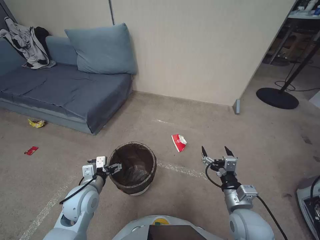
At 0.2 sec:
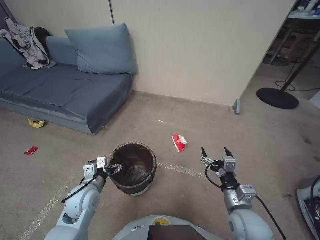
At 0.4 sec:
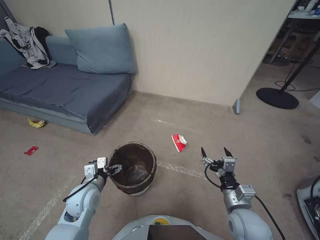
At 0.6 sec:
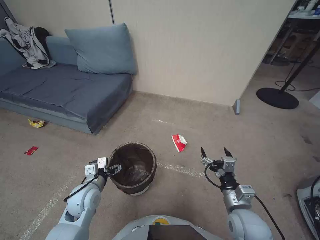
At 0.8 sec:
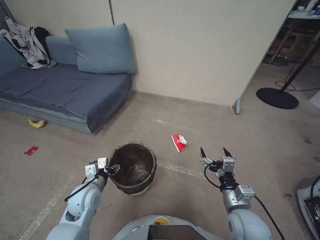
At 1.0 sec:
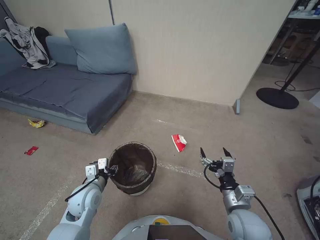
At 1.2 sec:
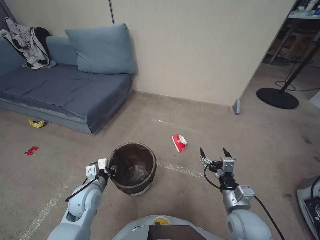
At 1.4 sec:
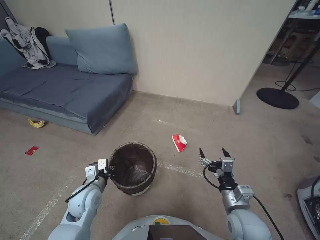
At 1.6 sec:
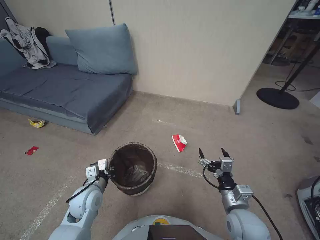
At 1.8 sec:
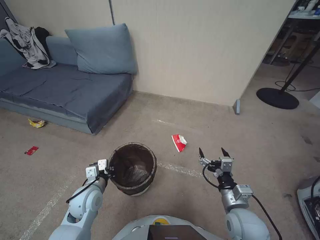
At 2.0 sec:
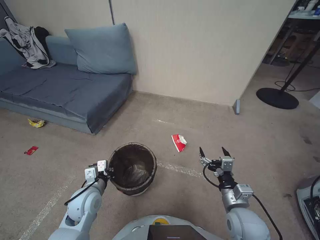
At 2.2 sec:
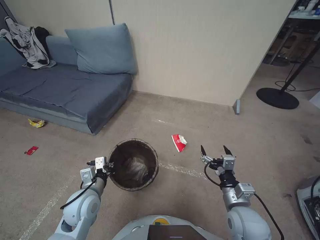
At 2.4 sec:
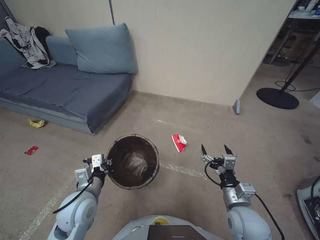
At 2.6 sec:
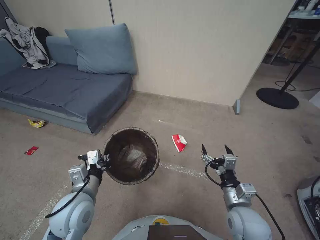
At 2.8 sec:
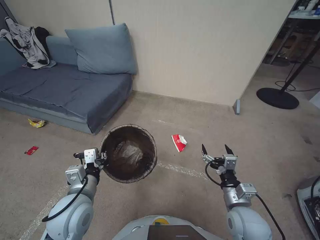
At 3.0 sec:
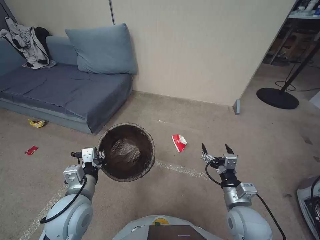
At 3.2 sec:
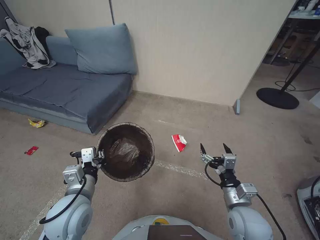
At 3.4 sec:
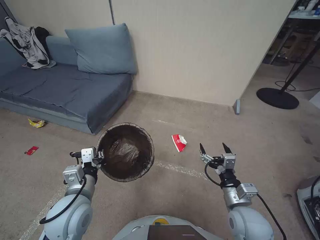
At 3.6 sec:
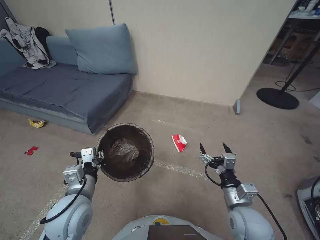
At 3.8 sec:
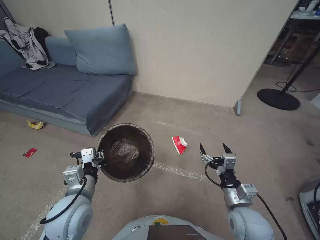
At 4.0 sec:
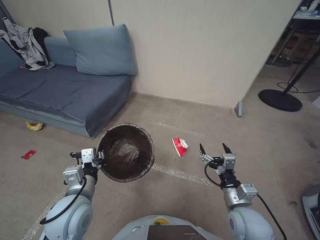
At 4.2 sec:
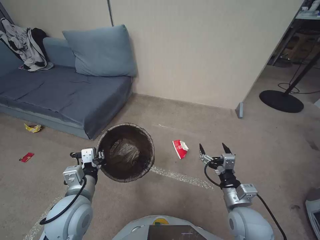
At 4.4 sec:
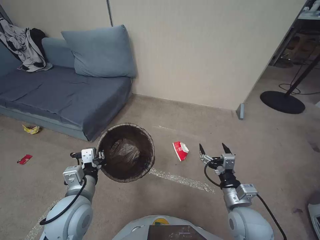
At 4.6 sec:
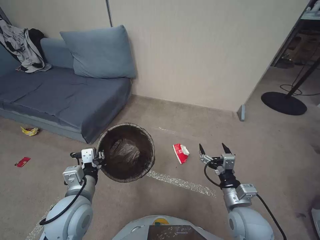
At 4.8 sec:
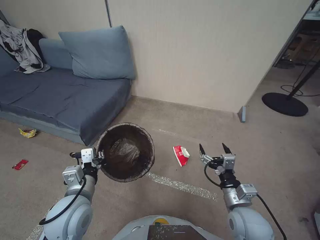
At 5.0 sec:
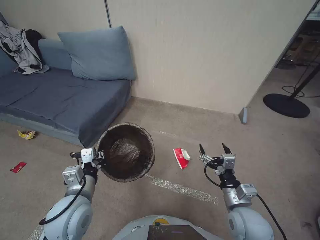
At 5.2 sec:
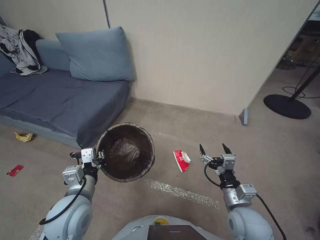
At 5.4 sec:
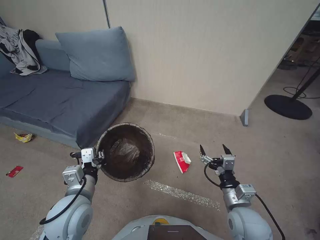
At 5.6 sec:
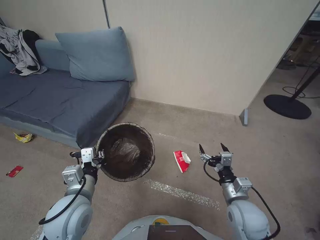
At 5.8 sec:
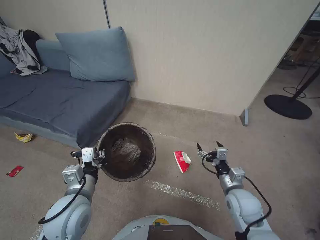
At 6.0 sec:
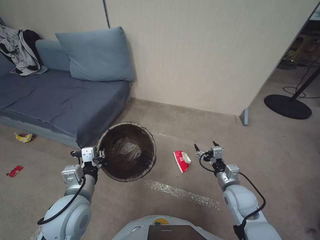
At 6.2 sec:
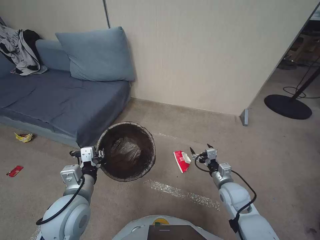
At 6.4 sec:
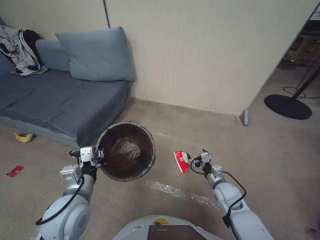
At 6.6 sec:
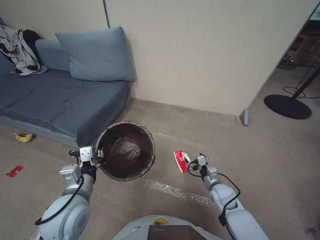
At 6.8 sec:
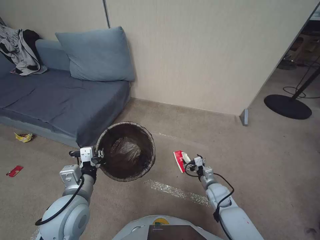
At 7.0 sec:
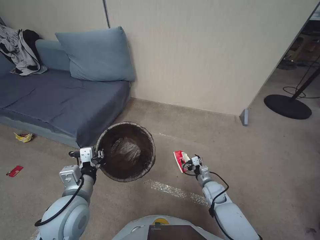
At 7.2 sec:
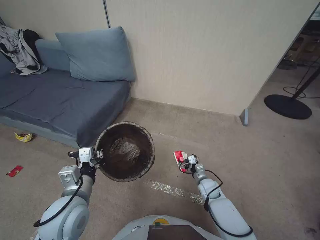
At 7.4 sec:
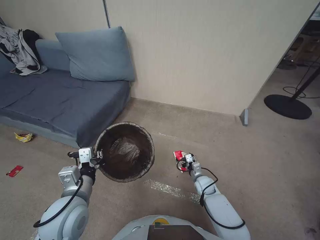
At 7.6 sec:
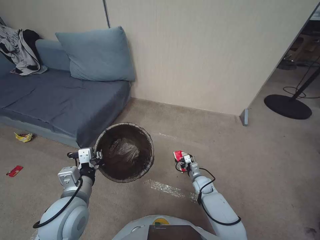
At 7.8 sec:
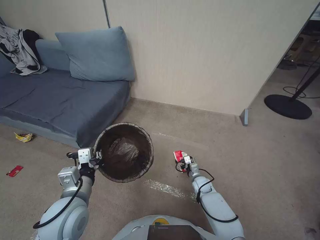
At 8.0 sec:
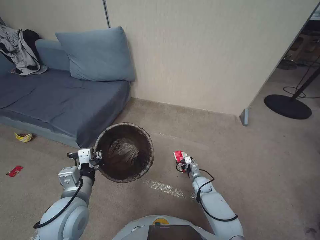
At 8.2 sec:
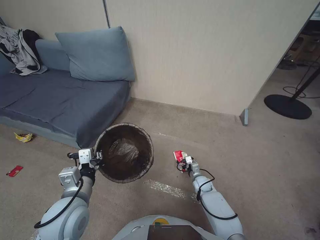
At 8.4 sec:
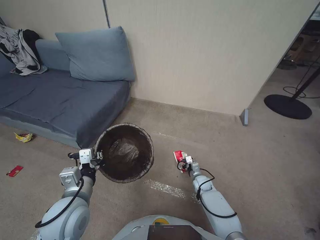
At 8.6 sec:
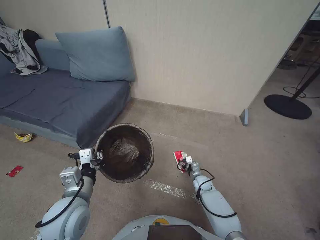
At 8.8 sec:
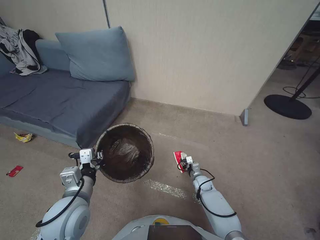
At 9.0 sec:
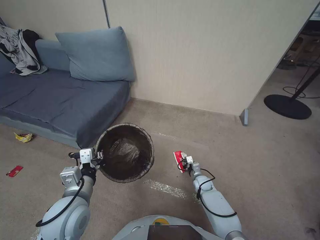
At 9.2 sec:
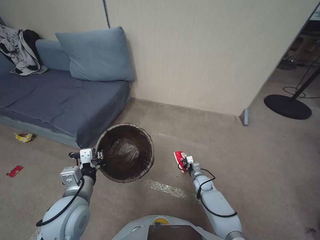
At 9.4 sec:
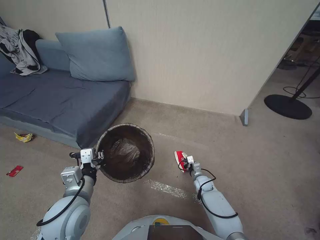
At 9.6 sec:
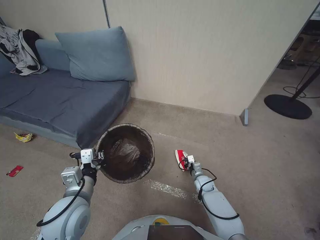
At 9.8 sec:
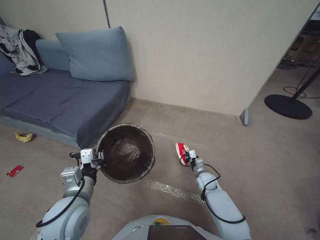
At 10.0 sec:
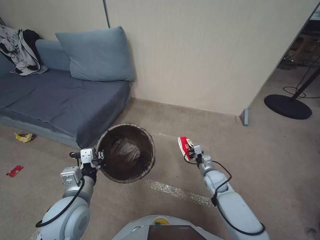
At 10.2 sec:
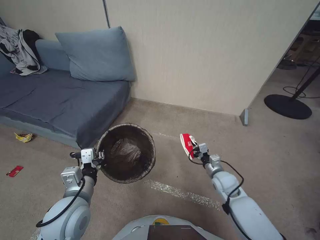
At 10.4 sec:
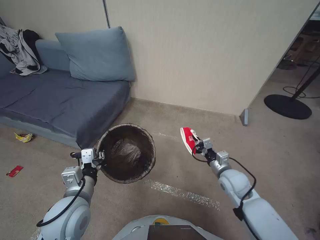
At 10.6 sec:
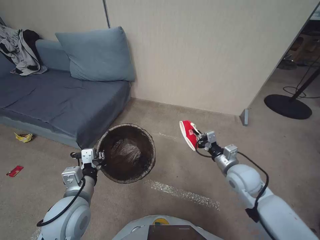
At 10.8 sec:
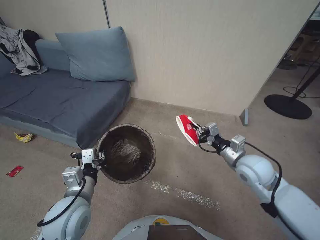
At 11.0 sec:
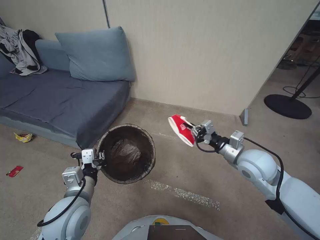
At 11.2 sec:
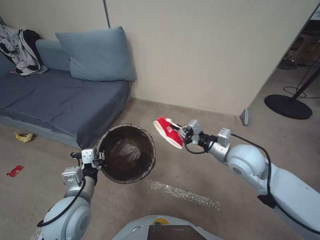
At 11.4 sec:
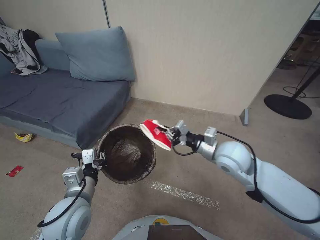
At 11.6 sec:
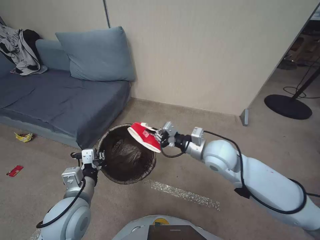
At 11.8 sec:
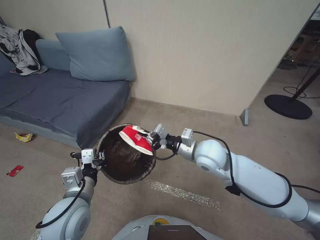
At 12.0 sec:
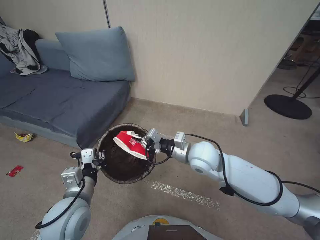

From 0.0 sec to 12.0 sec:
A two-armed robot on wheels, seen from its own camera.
Task of the whole recording: Pick up the trash bin, then pick up the garbage from the floor and place it into the trash bin.
From 0.0 sec to 1.6 sec: The left gripper closes.
From 1.6 sec to 3.0 sec: The left gripper shifts some 10 cm upward and backward.
From 3.0 sec to 4.4 sec: Neither gripper changes place.
From 4.4 sec to 6.0 sec: The right gripper shifts roughly 5 cm forward.
From 6.0 sec to 7.6 sec: The right gripper moves downward and forward, roughly 20 cm.
From 7.6 sec to 9.0 sec: The right gripper closes.
From 9.0 sec to 10.4 sec: The right gripper shifts some 20 cm upward.
From 10.4 sec to 12.0 sec: The right gripper heads upward and to the left, covering about 20 cm.

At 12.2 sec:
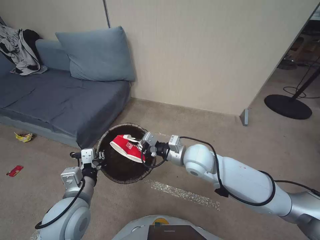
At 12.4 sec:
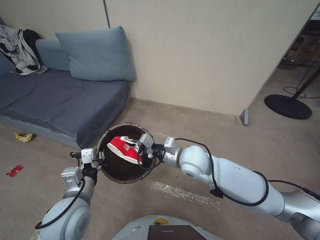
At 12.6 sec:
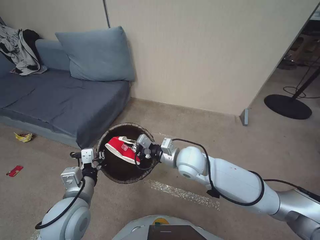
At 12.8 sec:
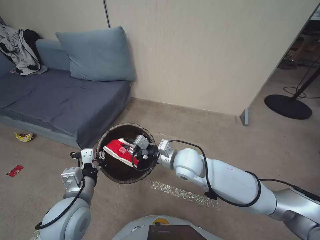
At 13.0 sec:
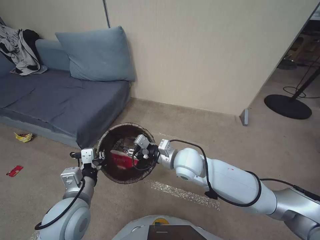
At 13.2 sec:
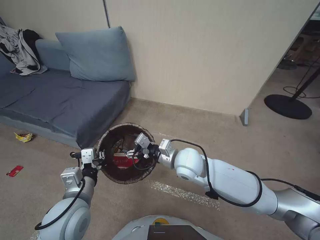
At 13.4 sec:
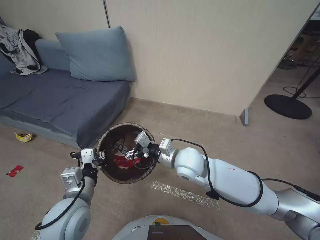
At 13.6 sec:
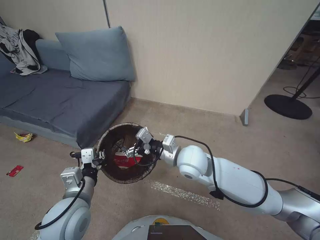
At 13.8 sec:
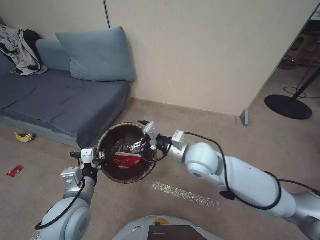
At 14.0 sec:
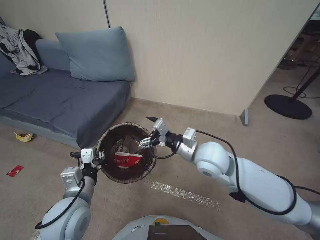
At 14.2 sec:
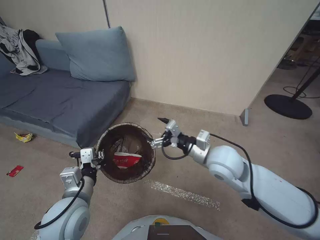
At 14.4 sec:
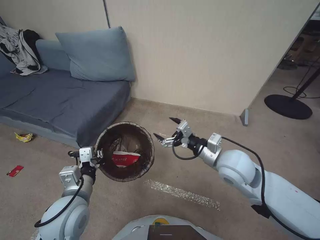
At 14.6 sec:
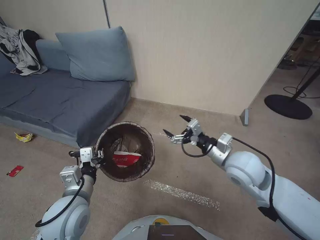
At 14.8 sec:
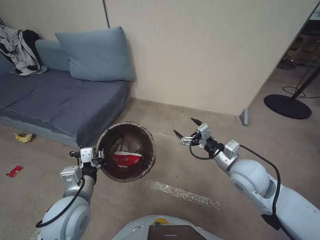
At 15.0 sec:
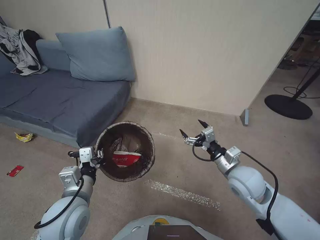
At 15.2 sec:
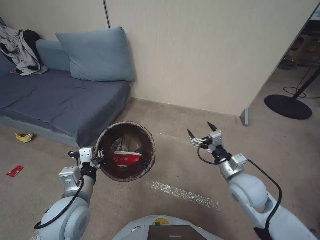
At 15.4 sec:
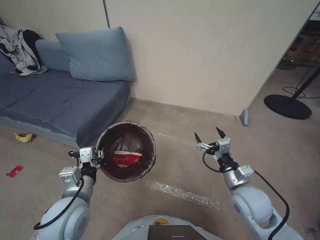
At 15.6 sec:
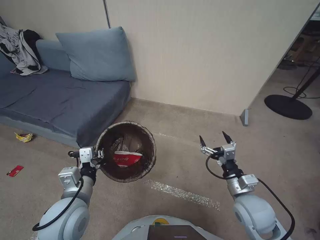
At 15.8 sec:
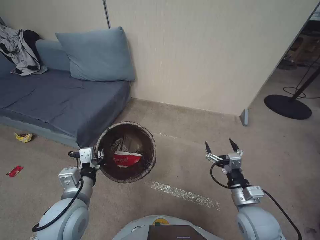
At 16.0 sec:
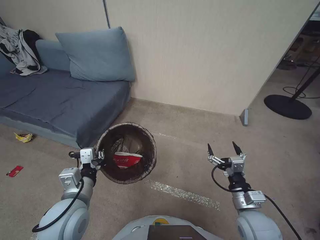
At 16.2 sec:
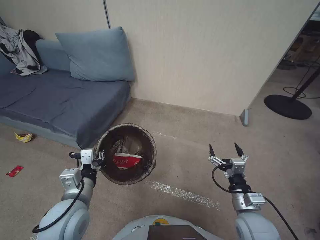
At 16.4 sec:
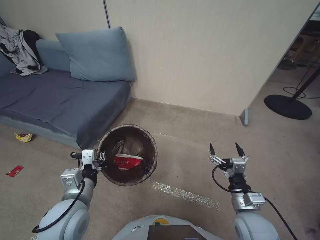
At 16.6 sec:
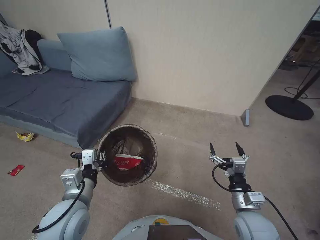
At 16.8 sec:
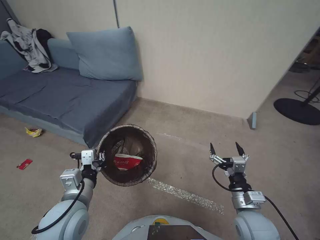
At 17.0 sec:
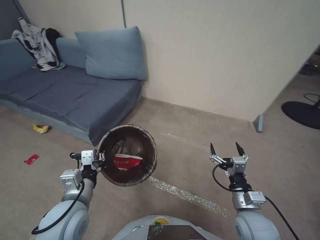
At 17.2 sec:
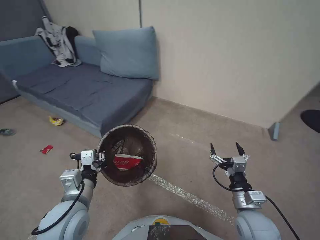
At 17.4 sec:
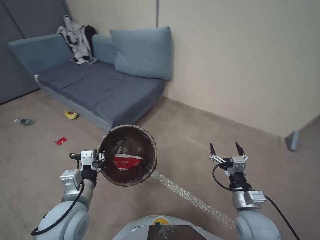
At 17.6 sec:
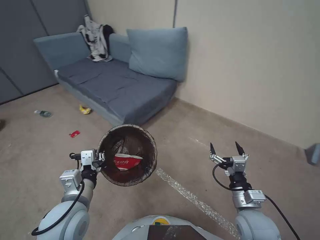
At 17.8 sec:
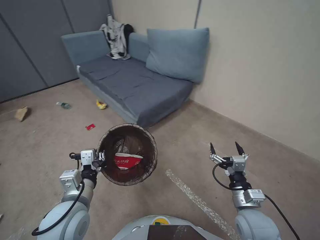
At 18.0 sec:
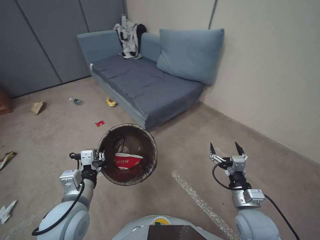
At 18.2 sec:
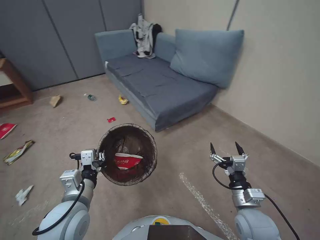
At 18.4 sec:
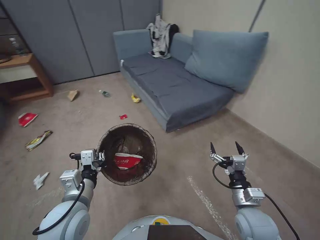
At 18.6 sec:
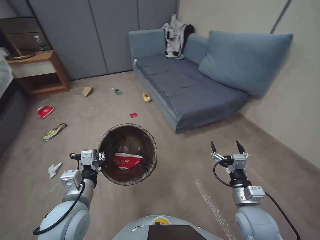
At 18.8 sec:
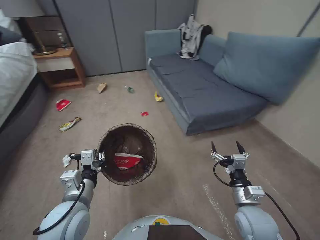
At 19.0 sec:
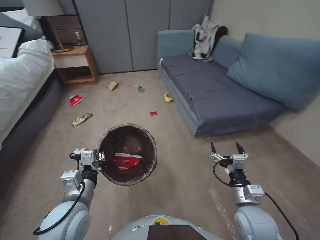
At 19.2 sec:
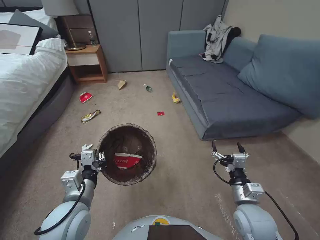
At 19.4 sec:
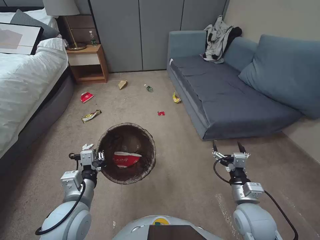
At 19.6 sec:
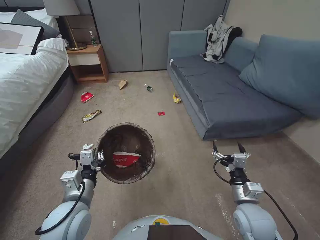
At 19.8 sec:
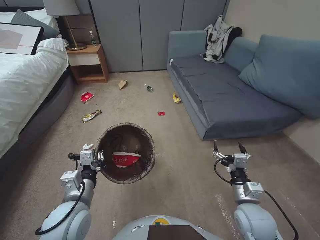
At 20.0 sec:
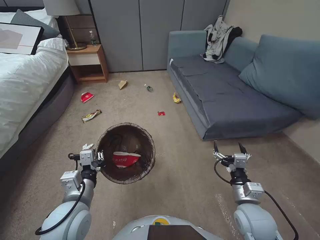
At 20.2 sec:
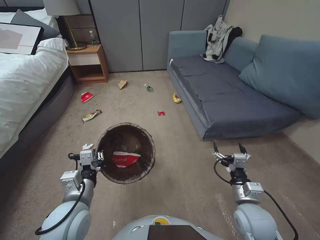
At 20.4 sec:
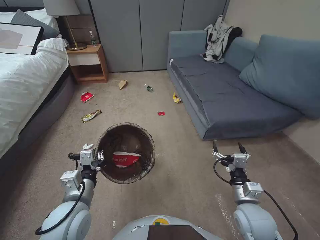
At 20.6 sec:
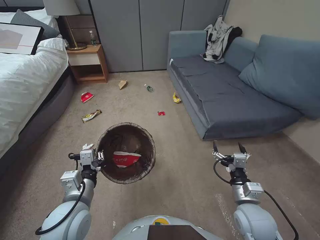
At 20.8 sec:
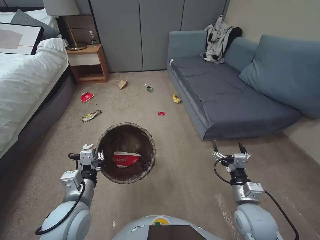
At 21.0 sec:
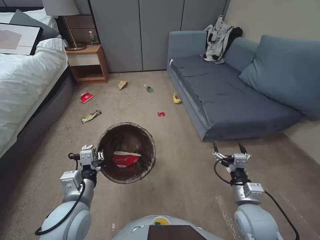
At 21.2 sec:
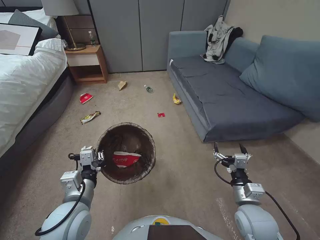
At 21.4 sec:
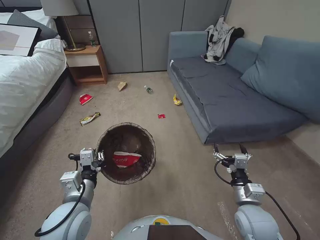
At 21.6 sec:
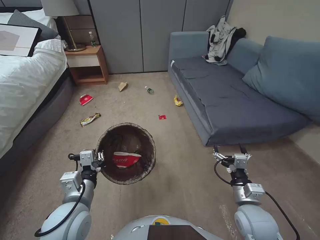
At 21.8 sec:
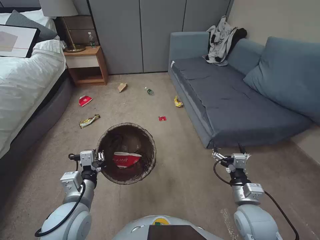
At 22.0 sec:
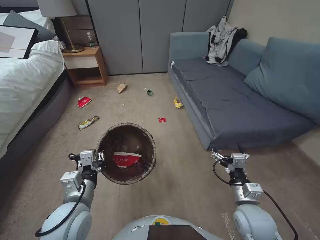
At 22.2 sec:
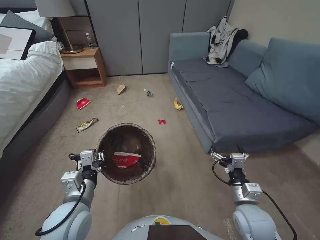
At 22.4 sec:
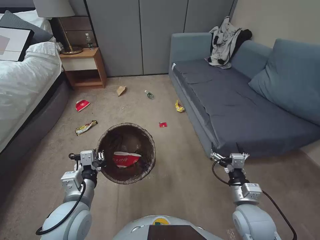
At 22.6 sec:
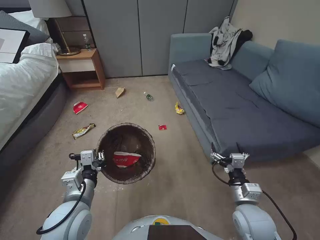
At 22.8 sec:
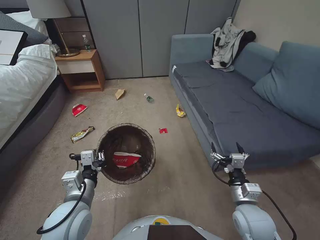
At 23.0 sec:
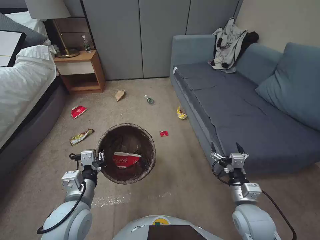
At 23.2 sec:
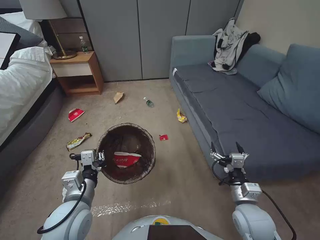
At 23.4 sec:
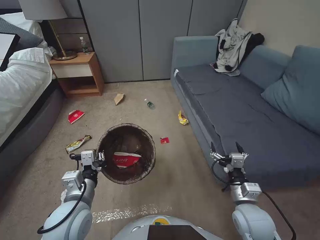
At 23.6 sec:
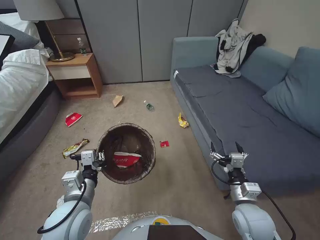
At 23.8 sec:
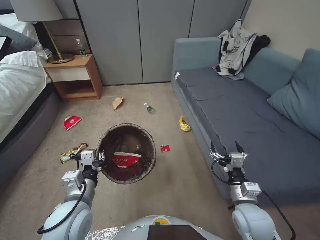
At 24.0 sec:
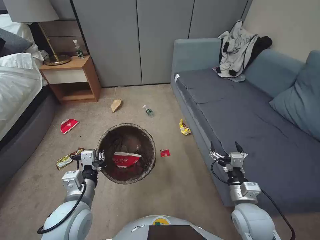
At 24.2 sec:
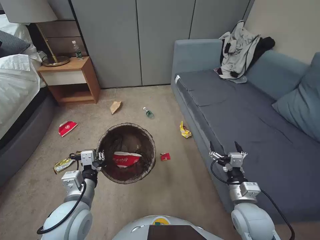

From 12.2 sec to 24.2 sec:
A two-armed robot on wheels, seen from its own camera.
Task of the whole recording: Pick up the trash bin, then pick up the garbage from the floor and place it into the trash bin.
From 12.2 sec to 13.8 sec: The right gripper opens up.
From 13.8 sec to 15.2 sec: The right gripper travels to the right and downward by some 15 cm.
From 15.2 sec to 16.6 sec: The right gripper is displaced backward and downward by approximately 10 cm.
From 19.8 sec to 22.6 sec: Both grippers stay about where they are.
